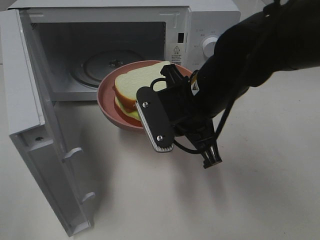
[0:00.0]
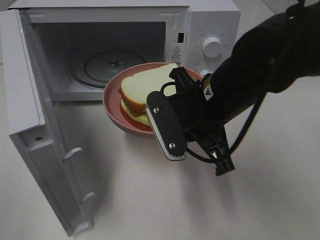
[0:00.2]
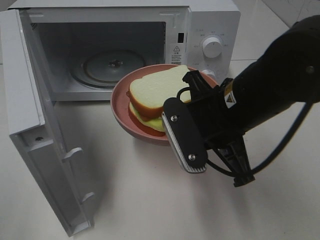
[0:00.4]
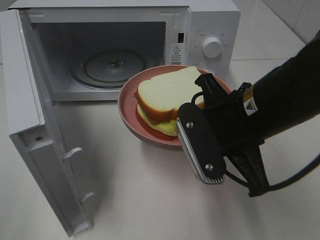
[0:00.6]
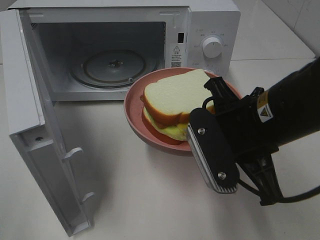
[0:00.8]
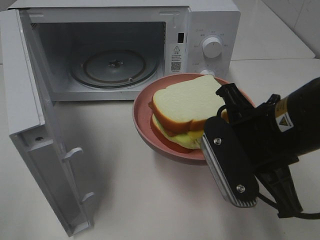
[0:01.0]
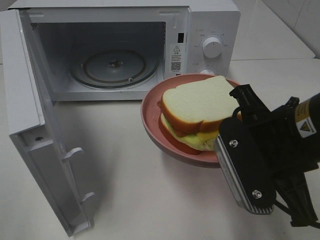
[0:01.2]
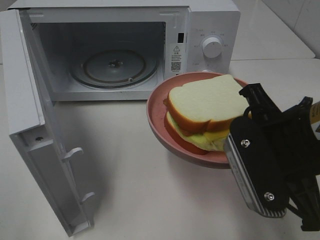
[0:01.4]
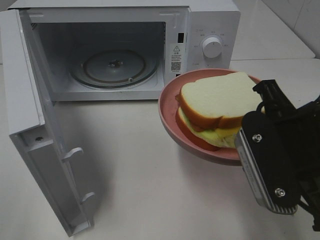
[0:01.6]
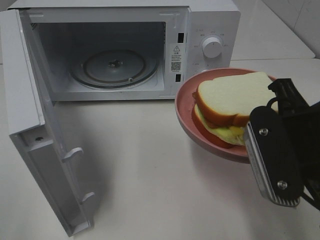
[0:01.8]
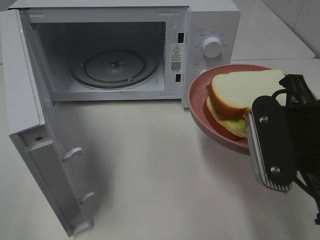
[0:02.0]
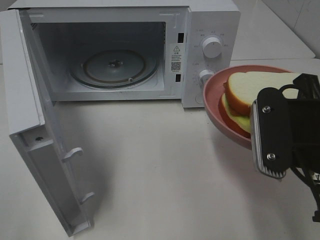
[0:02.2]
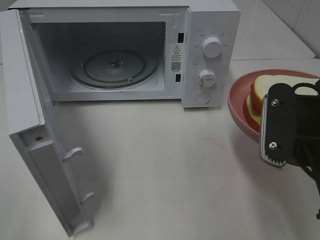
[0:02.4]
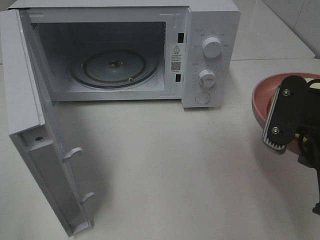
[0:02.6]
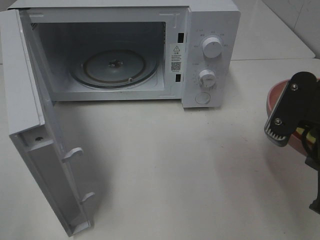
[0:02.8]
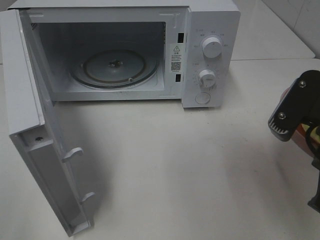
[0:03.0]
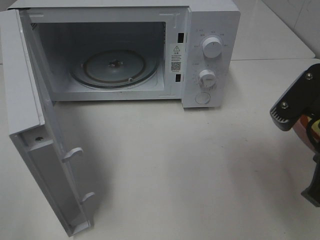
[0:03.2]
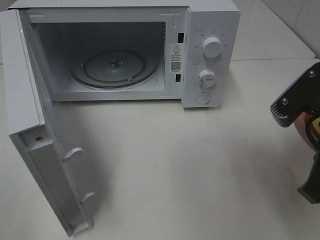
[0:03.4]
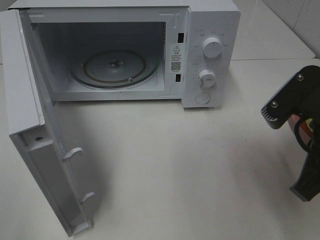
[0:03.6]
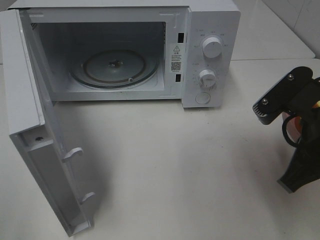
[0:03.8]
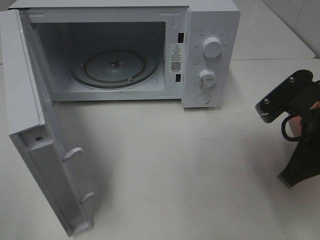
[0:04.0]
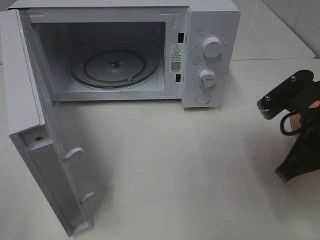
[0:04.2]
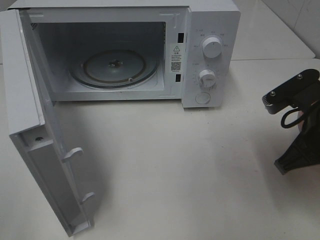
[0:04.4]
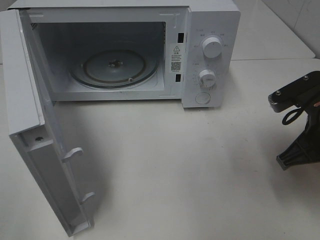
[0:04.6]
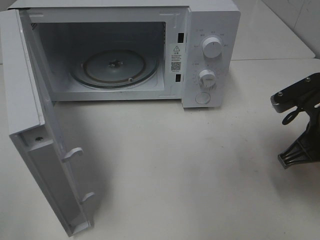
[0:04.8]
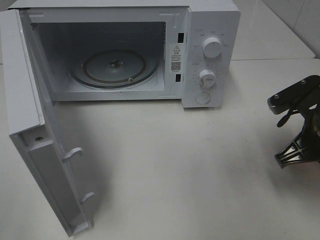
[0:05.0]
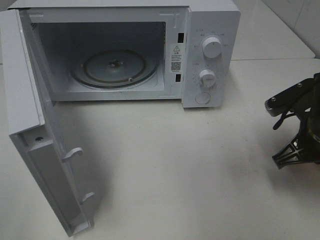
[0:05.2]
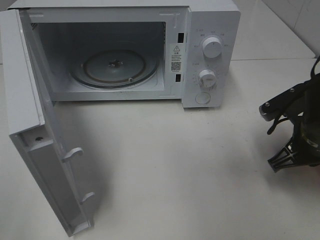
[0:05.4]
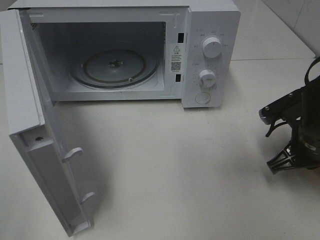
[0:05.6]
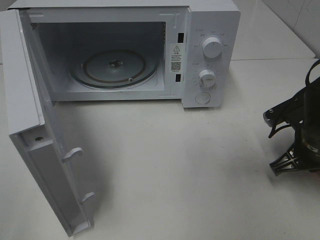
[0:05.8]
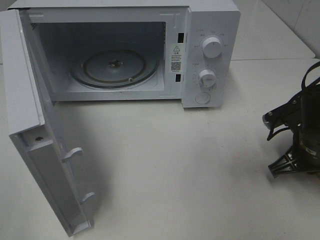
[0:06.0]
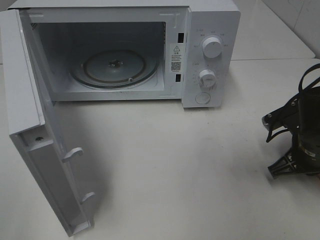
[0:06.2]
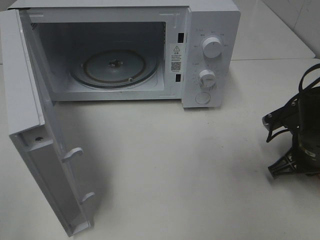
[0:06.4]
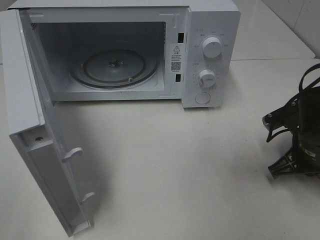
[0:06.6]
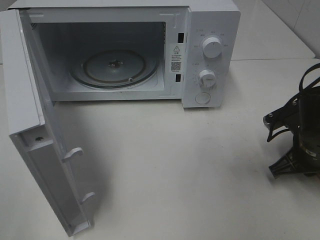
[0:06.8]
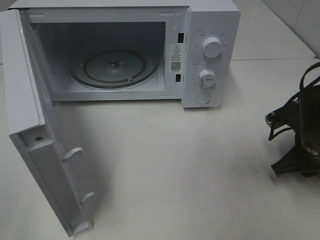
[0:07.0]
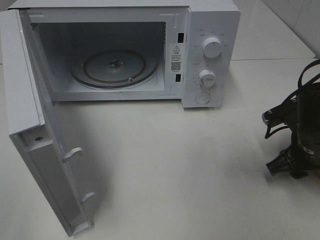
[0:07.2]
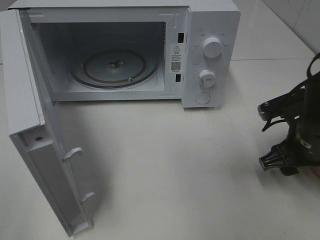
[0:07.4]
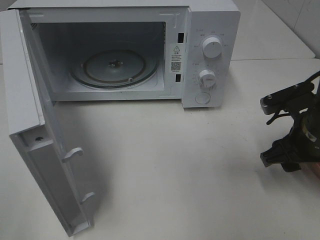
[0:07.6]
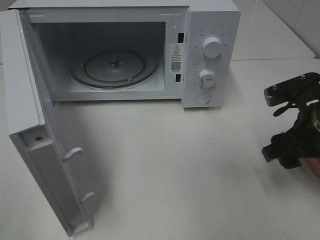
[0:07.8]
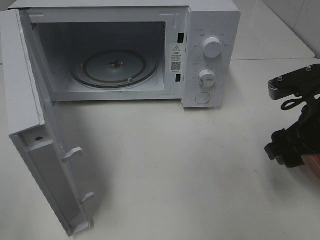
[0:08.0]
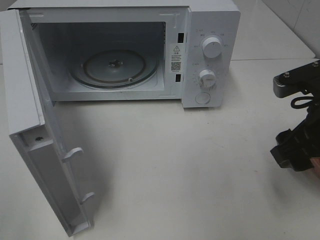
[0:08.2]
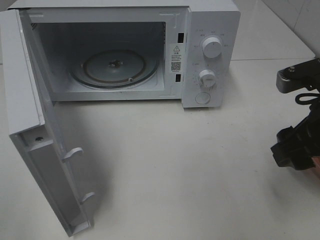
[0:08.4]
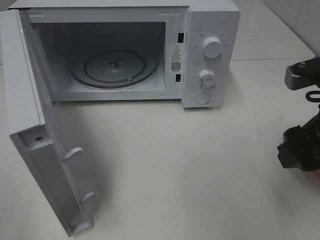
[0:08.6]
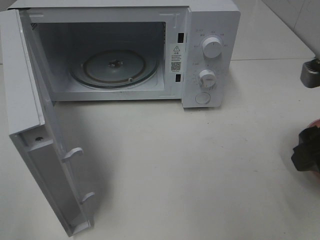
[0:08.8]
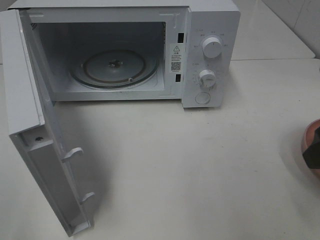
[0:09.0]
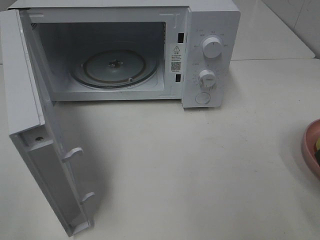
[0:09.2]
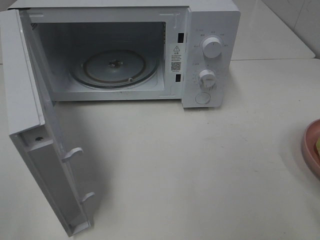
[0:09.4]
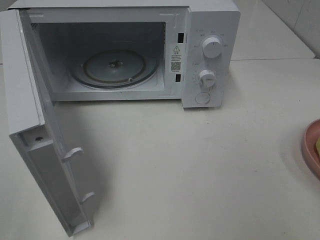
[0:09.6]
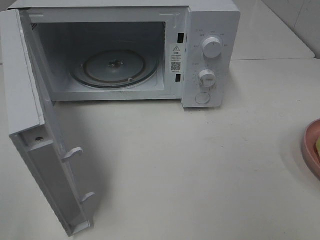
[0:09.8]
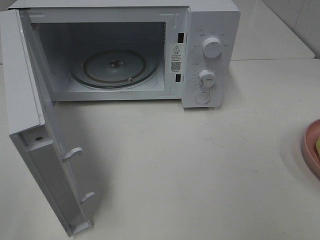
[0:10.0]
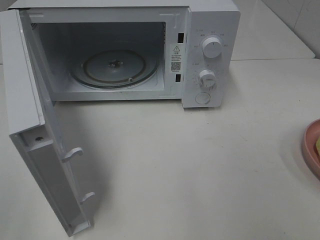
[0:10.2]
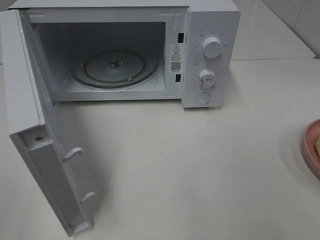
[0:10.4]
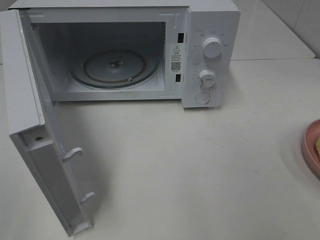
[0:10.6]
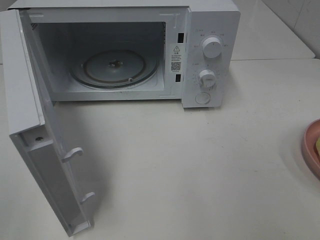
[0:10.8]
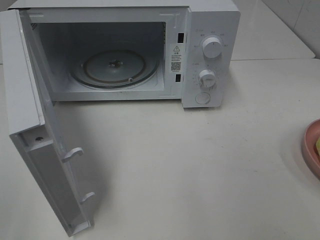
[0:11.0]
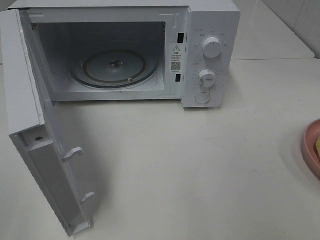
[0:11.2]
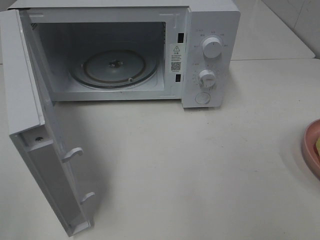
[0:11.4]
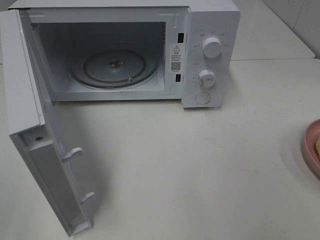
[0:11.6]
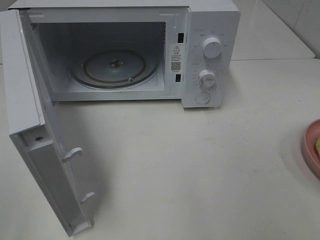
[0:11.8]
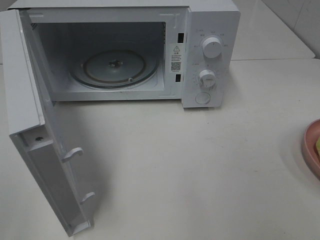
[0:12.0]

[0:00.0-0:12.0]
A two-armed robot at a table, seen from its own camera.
Task of the whole recording: Heat Sandwich.
Step, 0:00.0 to 0:08.0: Right hand: place the plate on the table.
0:00.0 to 0:01.6: The right gripper goes some 15 cm backward and to the right.
0:03.0 to 0:04.4: The right gripper shifts about 5 cm forward.
0:04.4 to 0:06.0: The right gripper heads downward, covering roughly 10 cm.
0:06.0 to 0:07.6: The right gripper opens its fingers.
0:07.6 to 0:09.0: The right gripper shifts about 15 cm upward and backward.
0:09.0 to 0:10.4: The right gripper goes approximately 15 cm backward.
0:10.4 to 0:12.0: Neither gripper changes place.

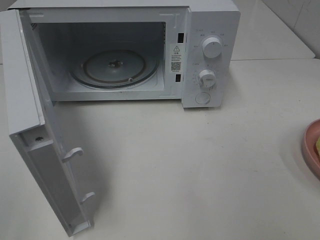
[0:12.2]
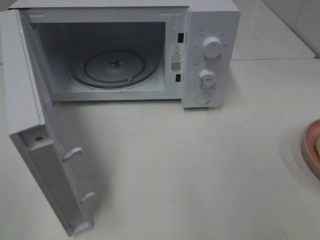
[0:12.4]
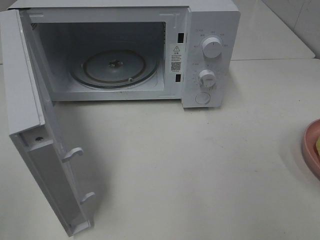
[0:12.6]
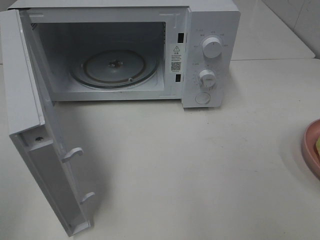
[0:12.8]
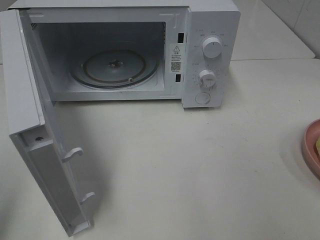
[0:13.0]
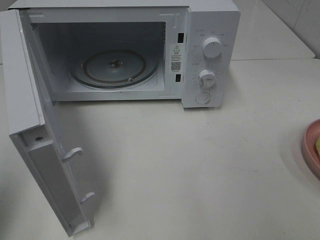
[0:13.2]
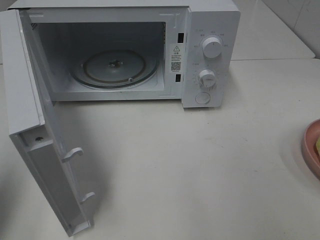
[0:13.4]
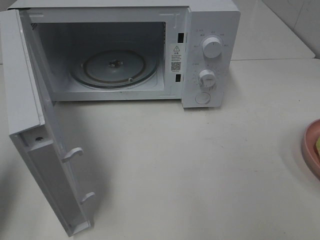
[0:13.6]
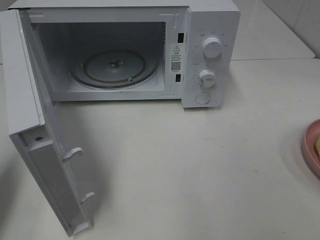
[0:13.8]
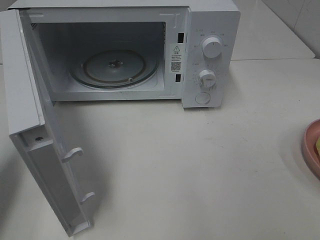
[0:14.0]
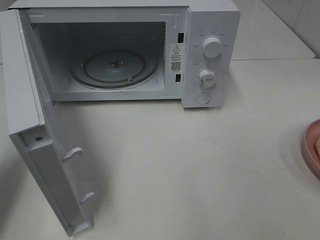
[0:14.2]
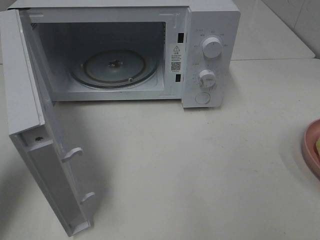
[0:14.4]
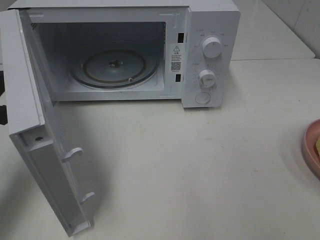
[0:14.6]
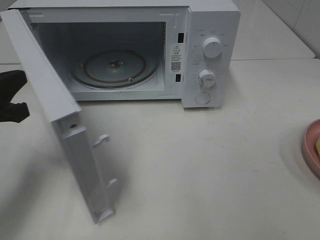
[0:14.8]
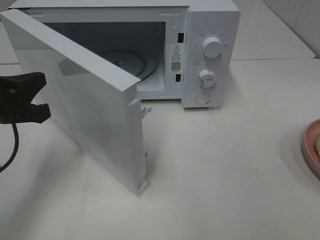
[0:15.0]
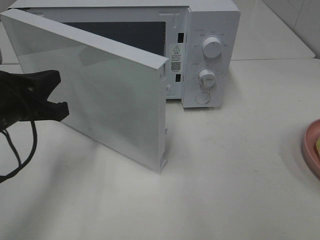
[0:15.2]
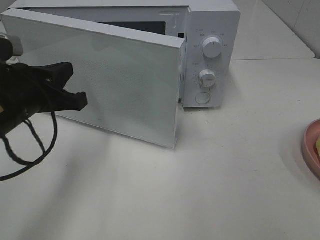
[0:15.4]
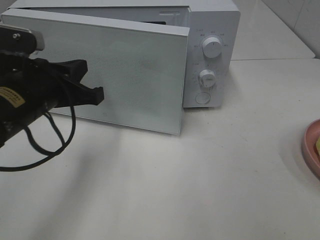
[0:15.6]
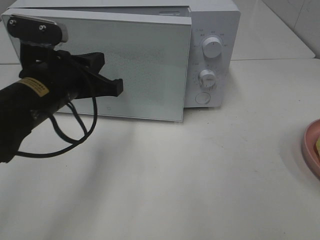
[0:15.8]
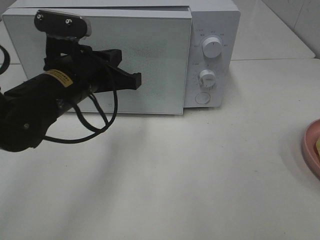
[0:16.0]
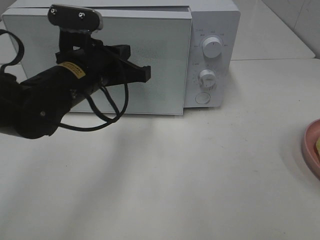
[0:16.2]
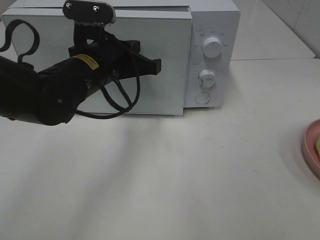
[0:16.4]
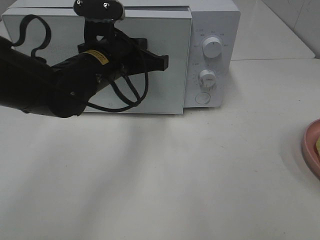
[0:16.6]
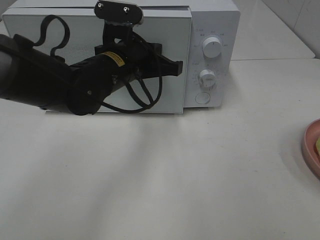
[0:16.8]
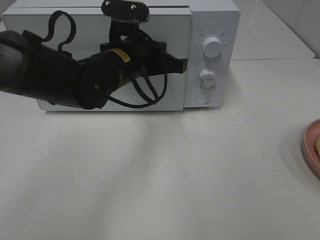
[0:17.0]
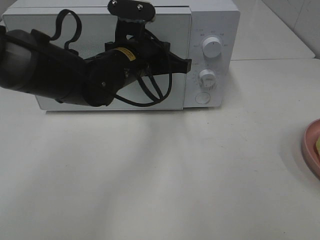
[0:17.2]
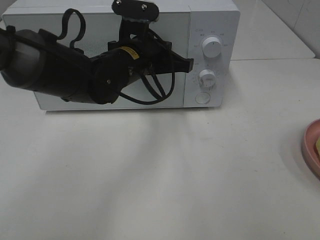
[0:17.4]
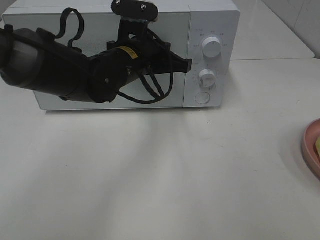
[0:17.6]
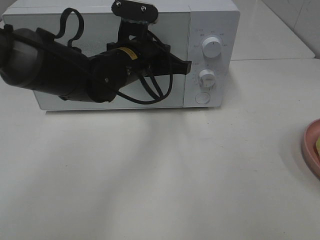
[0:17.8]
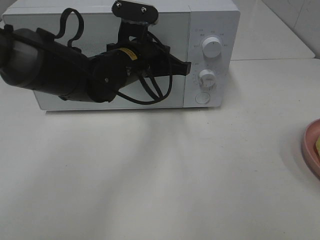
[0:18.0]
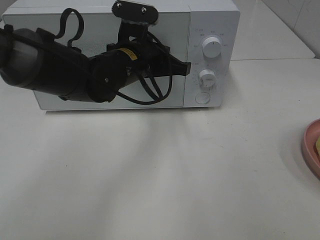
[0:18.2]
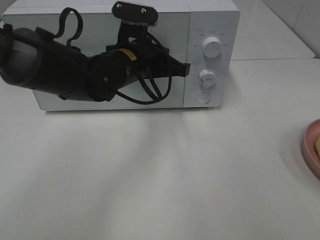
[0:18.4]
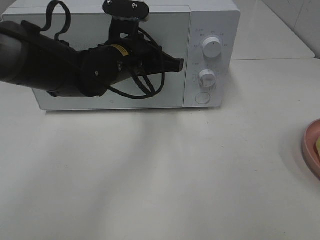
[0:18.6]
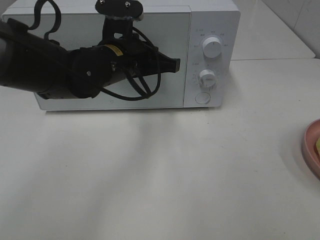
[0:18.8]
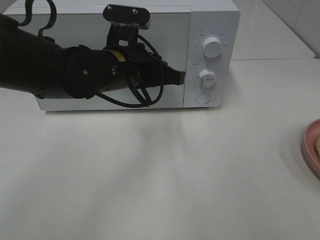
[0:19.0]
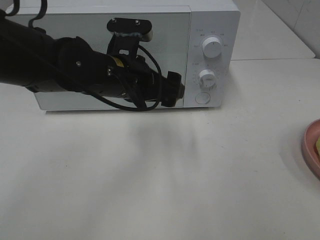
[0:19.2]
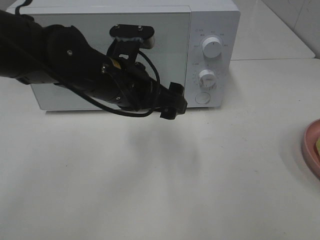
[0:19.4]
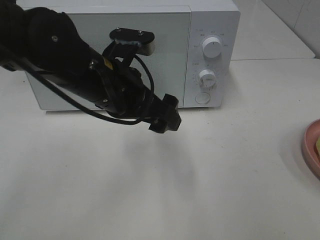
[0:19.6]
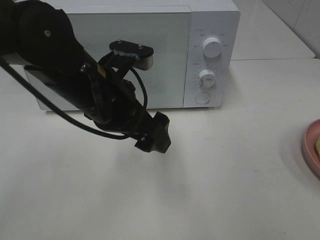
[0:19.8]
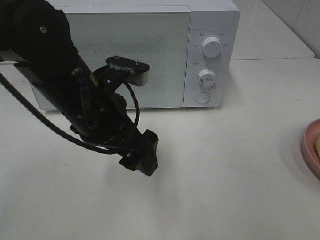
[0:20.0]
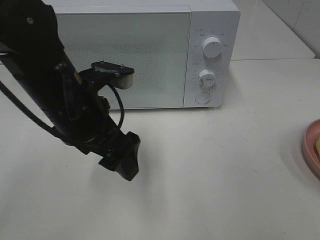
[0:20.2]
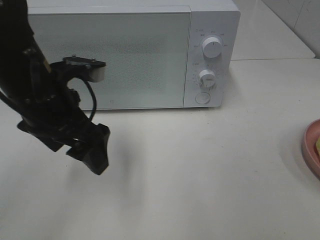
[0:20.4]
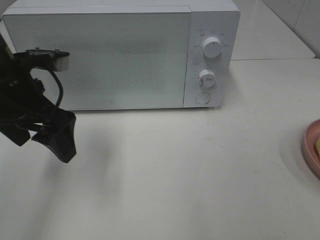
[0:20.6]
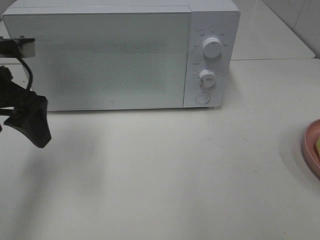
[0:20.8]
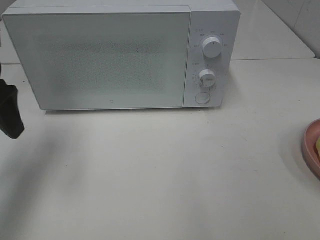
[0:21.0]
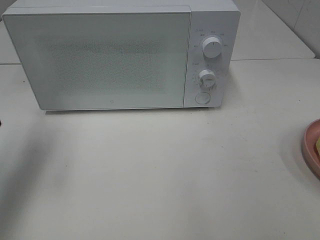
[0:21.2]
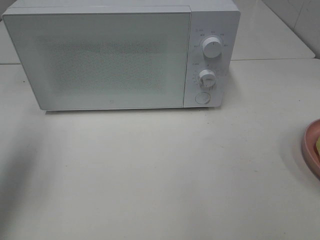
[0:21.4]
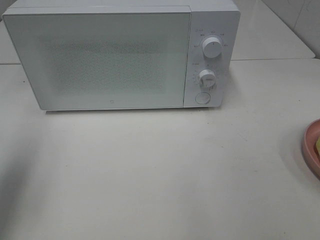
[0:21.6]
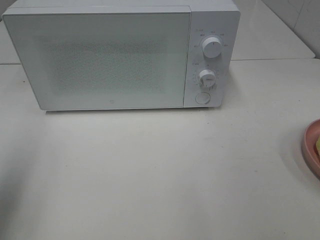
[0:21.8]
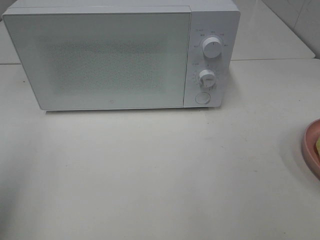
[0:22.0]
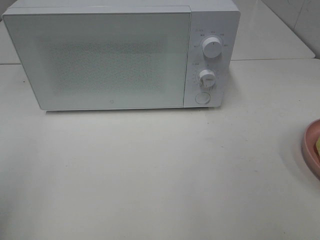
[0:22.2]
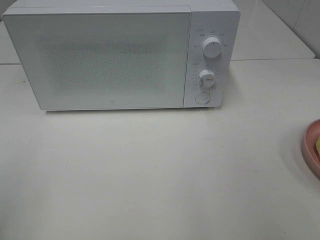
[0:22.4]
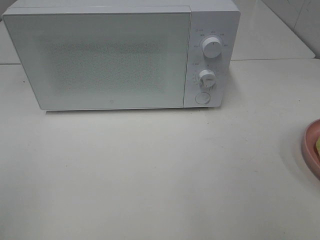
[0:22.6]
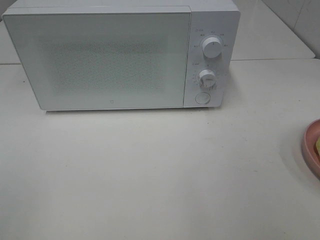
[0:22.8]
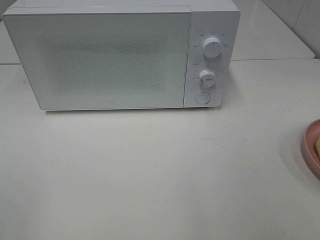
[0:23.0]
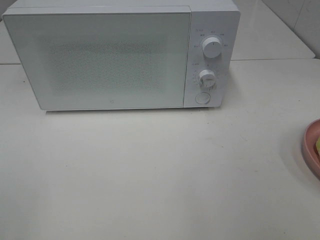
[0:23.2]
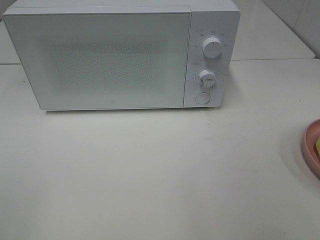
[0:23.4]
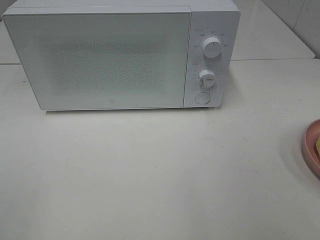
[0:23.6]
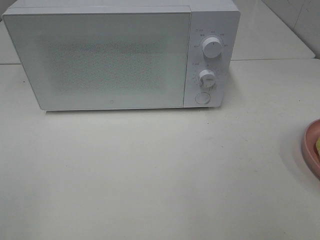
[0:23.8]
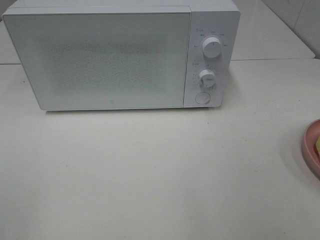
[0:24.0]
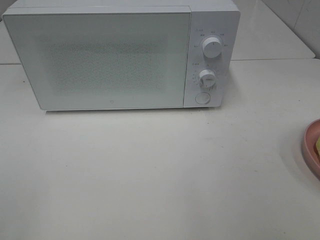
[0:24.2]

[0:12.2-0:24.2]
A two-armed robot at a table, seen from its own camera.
Task of the whole recording: Heat Sandwich.
Step, 0:12.2 to 0:19.4: Left hand: close the microwave door.
0:12.2 to 0:13.8: The left gripper is displaced forward by roughly 15 cm, and closes.
0:13.8 to 0:15.2: The left gripper moves to the right and forward, about 15 cm.
0:15.2 to 0:16.6: The left gripper is displaced to the right and forward by roughly 15 cm.
0:16.6 to 0:18.2: The grippers stay close to where they were, moving slightly.
0:18.2 to 0:19.8: The left gripper shifts about 10 cm backward, and opens.
0:19.8 to 0:21.2: The left gripper heads to the left, covering roughly 20 cm.
0:21.2 to 0:22.6: The left gripper heads backward, covering some 25 cm.
